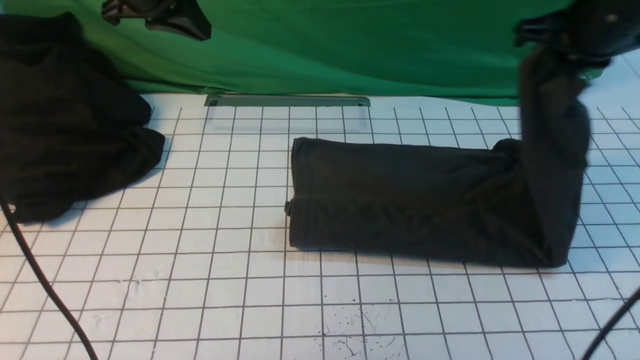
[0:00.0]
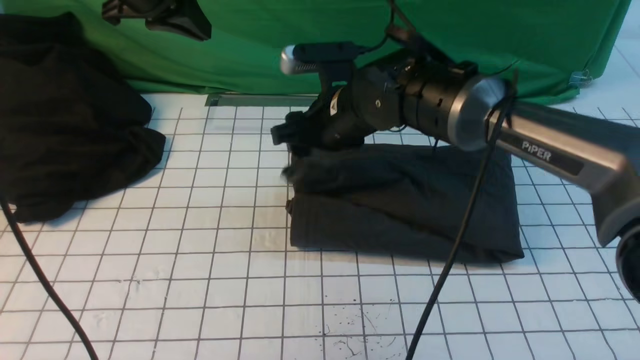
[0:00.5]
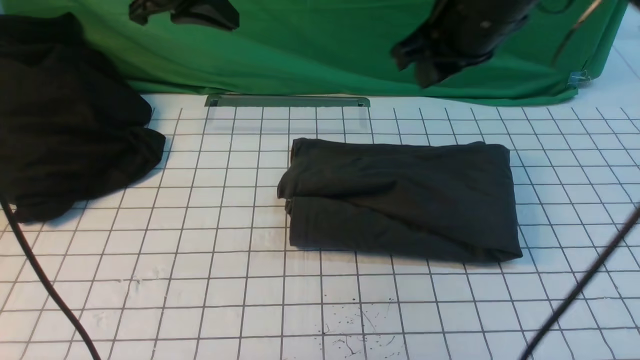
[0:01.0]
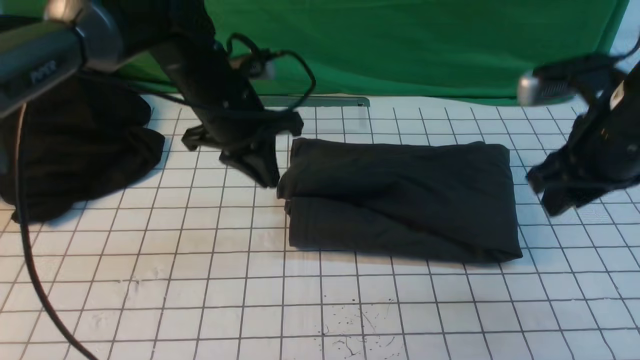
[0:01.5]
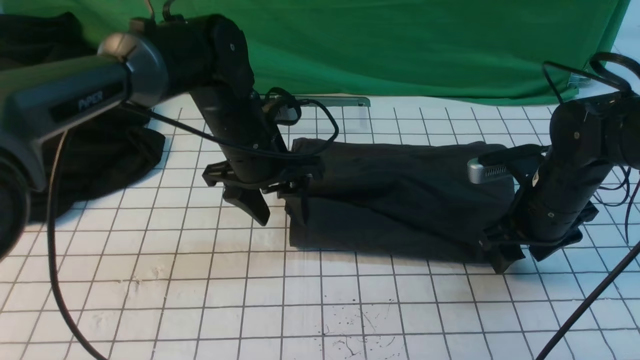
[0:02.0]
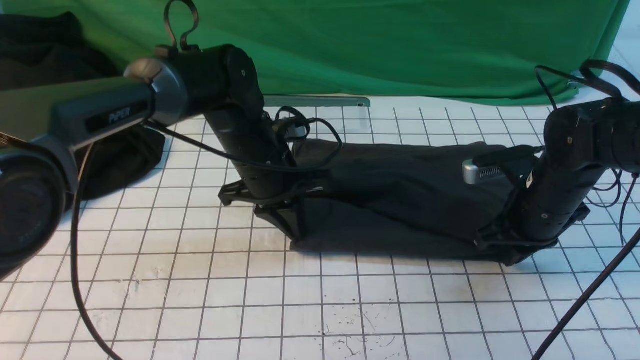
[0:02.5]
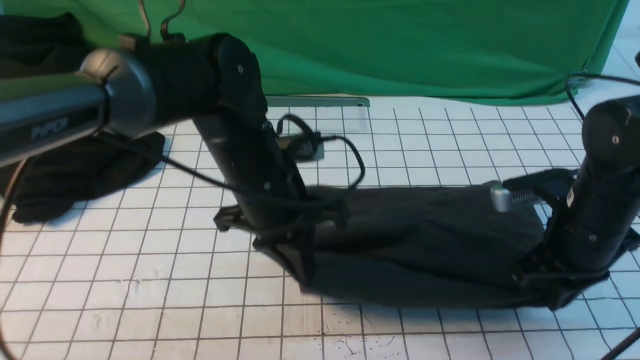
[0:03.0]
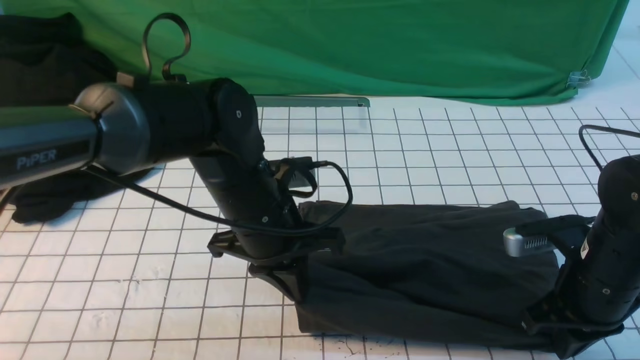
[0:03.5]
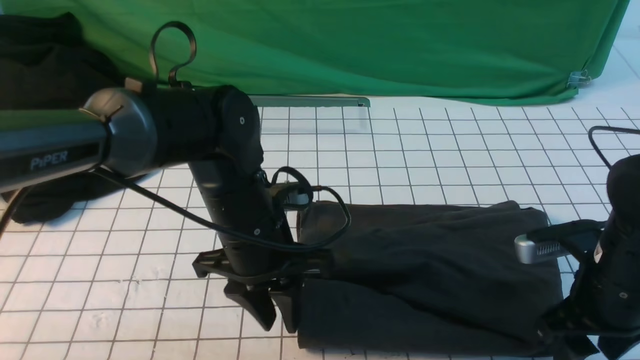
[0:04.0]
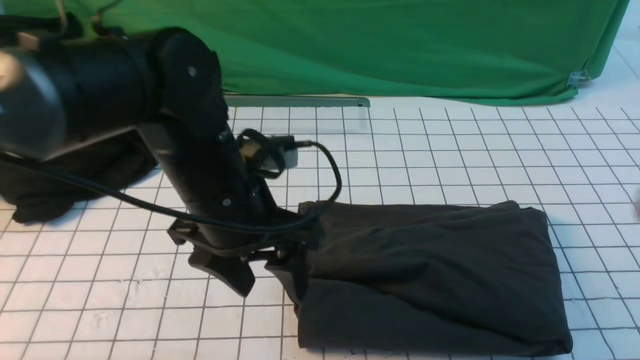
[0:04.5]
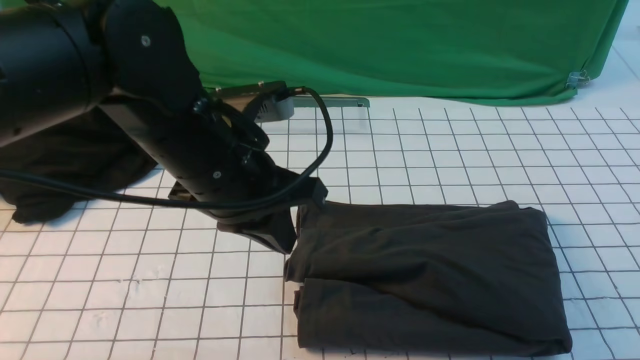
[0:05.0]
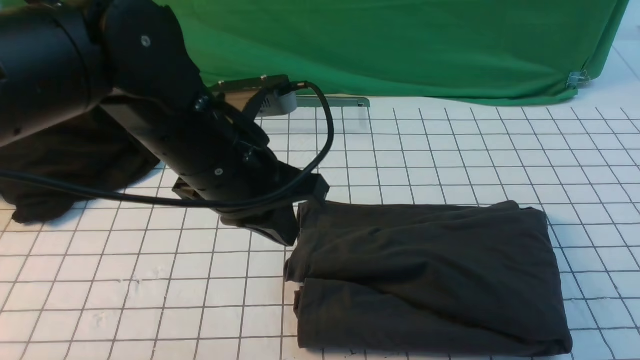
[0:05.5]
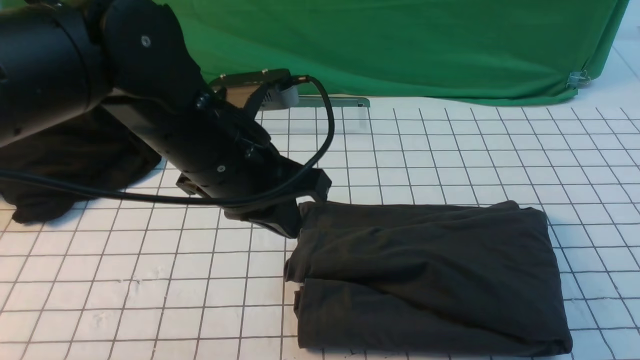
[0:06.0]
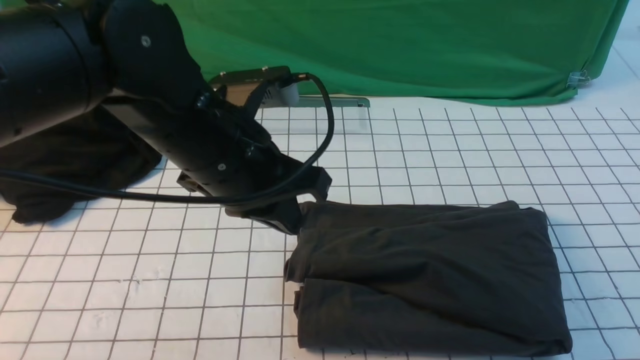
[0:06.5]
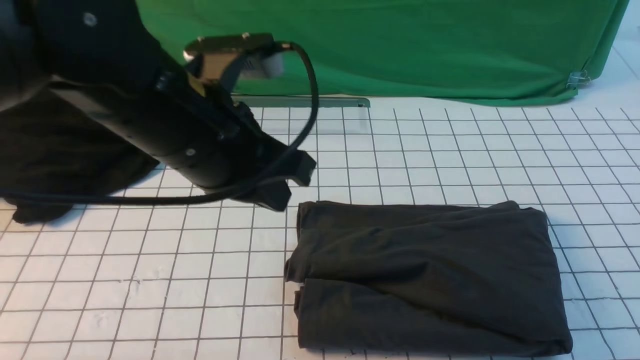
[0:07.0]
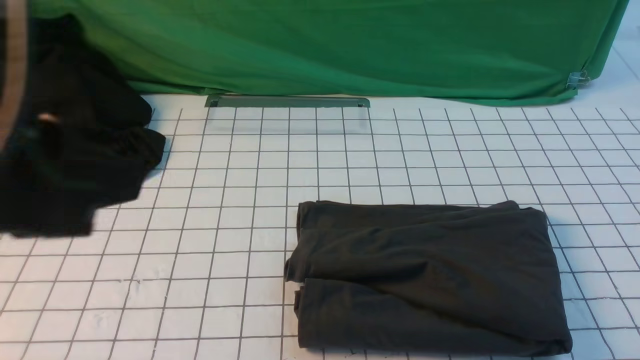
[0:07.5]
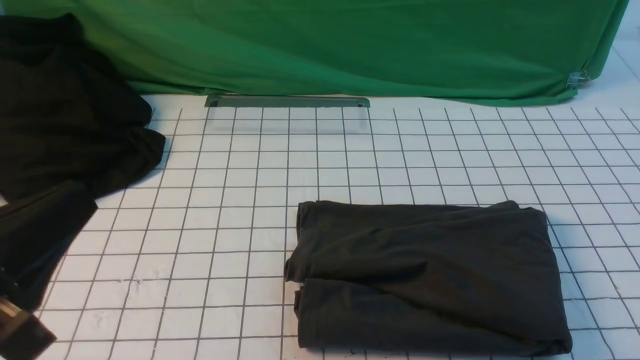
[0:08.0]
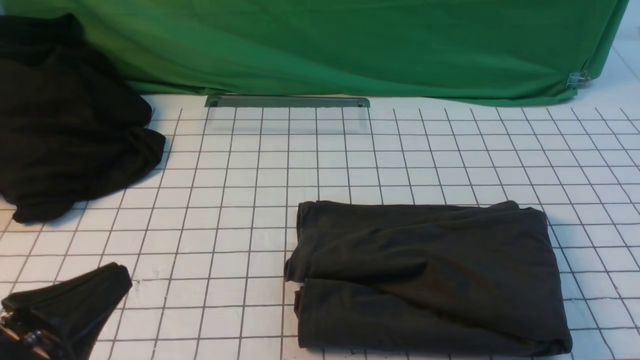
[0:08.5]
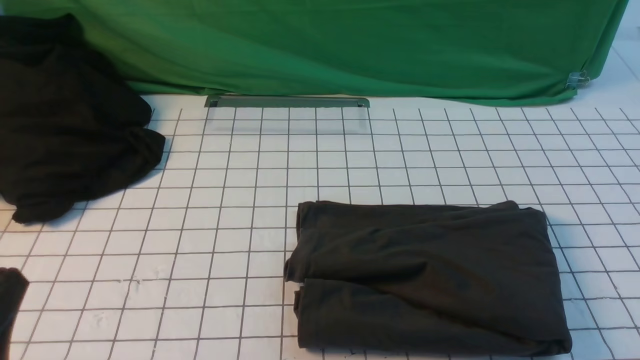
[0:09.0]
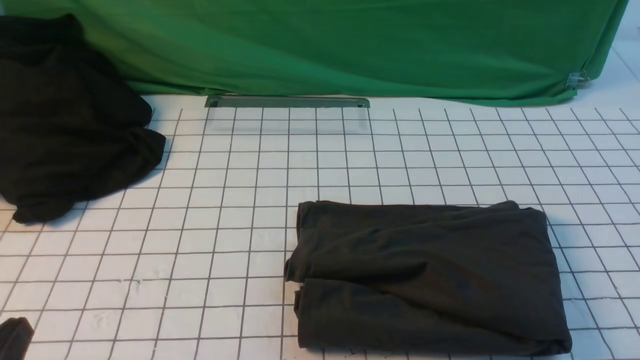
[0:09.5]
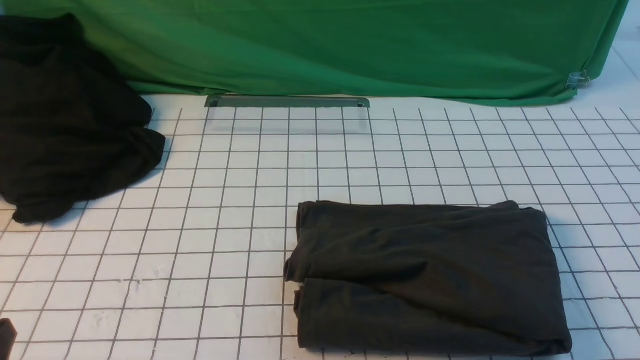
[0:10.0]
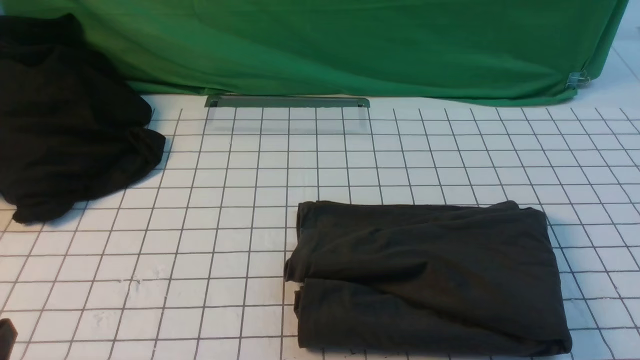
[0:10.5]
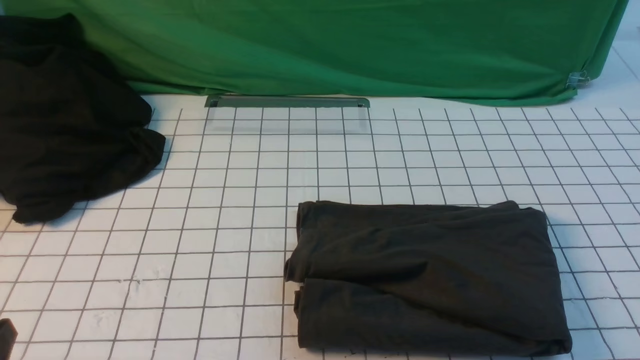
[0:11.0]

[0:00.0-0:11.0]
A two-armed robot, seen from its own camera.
Step, 0:00.0 to 0:01.0: use the right arm to drag the right edge of the fabric to the left and folds it over the left edge.
0:00.0 to 0:02.0: The left gripper travels downward, to the right and backward by approximately 20 cm, and opens its fingers, while the right gripper goes approximately 15 cm downward, reaches approximately 20 cm to the left, then returns, and opens its fingers.
0:02.0 to 0:03.5: Both grippers travel together backward, about 10 cm. The right gripper closes; the left gripper closes.
0:03.5 to 0:05.5: The left gripper travels upward by approximately 10 cm, and opens and closes again; the right gripper moves backward and upward, roughly 25 cm, and opens, then closes once more.
0:05.5 to 0:07.5: The right gripper is displaced downward by approximately 15 cm. Meanwhile the left gripper goes about 20 cm backward, upward and to the left.
0:07.5 to 0:09.0: The left gripper travels downward by approximately 20 cm.

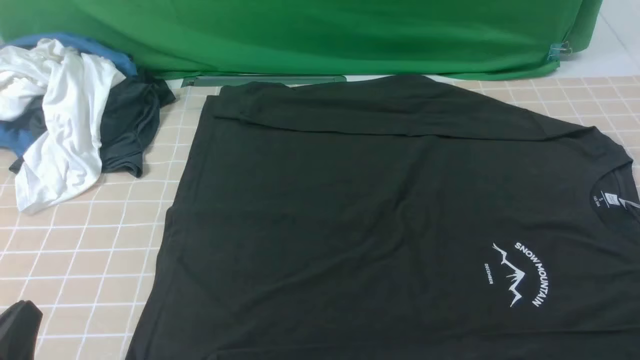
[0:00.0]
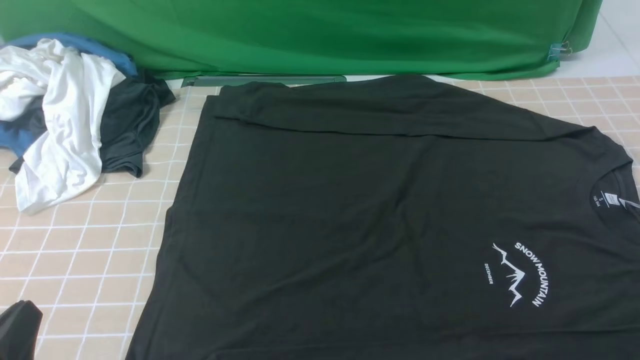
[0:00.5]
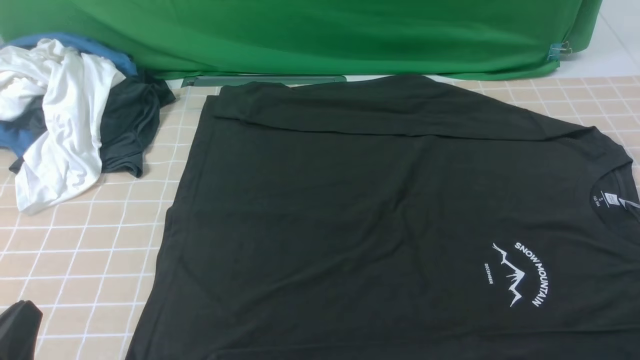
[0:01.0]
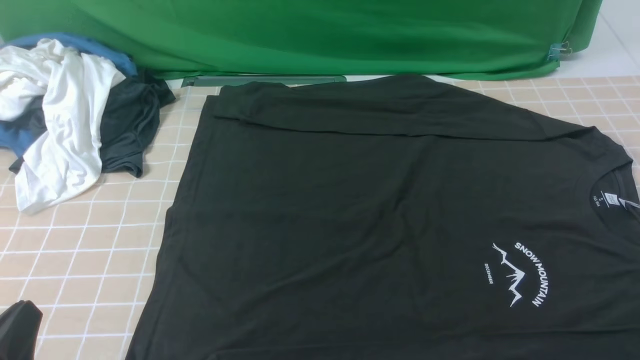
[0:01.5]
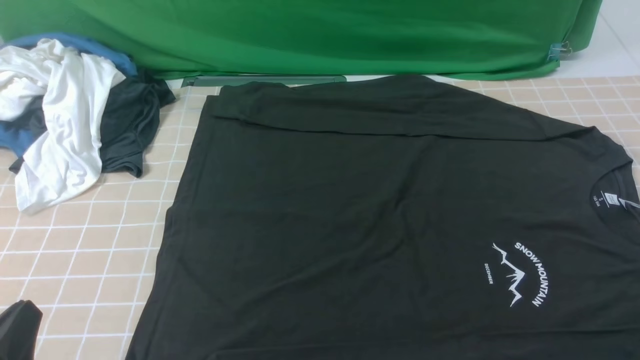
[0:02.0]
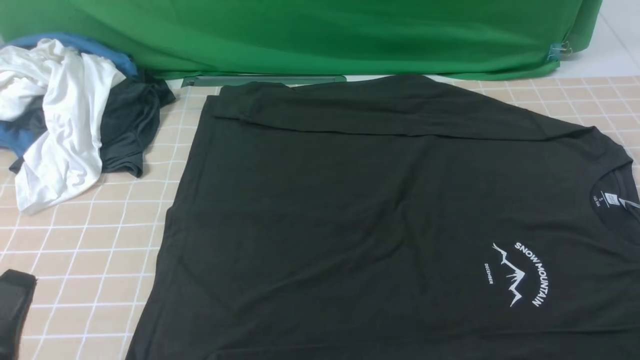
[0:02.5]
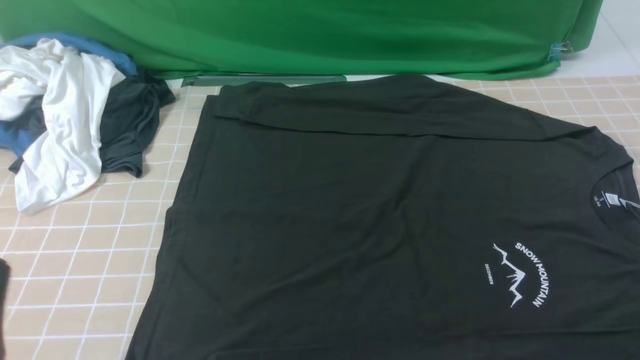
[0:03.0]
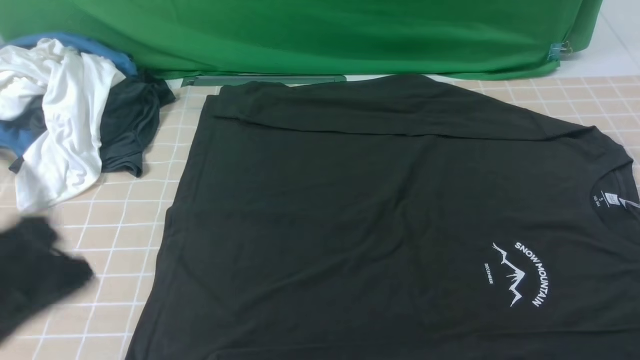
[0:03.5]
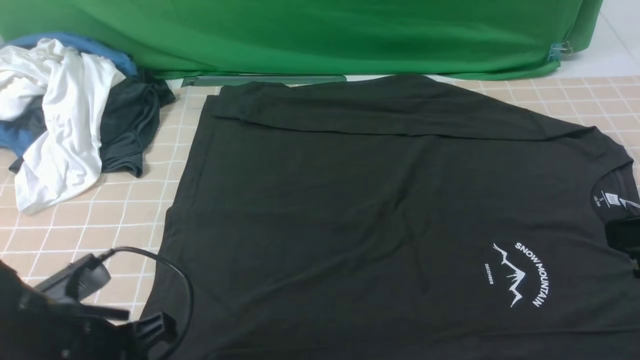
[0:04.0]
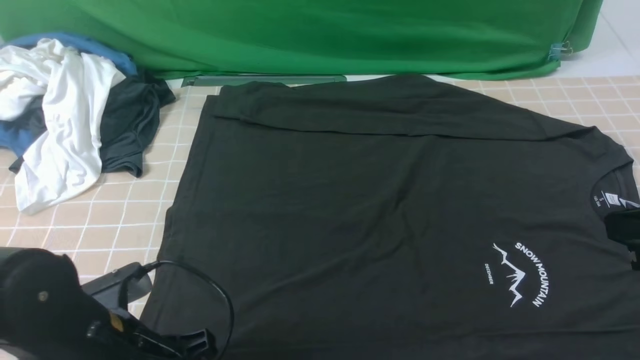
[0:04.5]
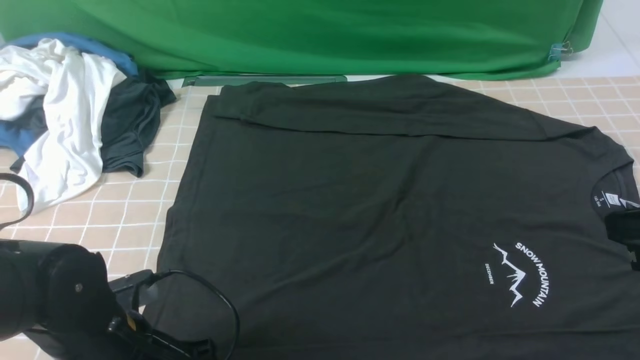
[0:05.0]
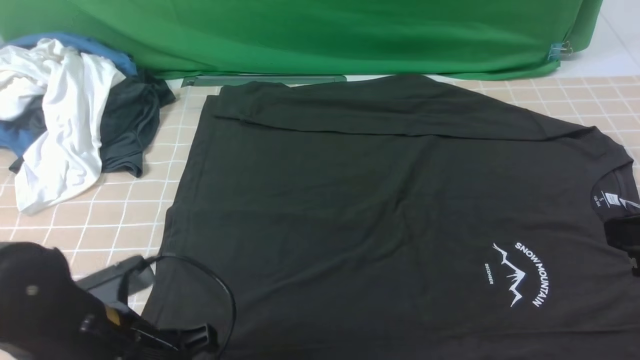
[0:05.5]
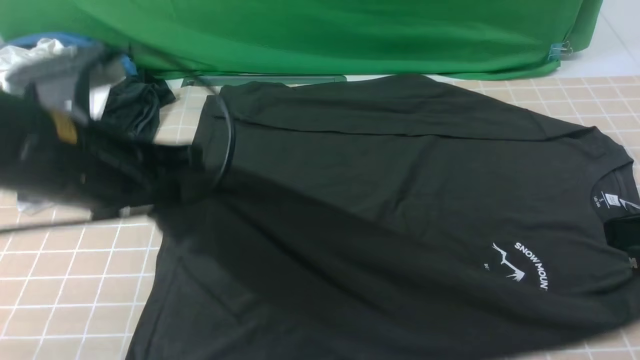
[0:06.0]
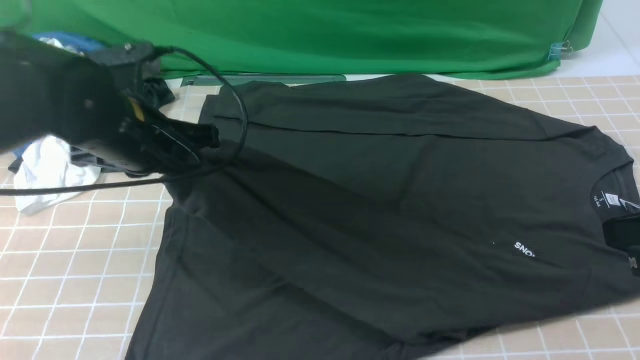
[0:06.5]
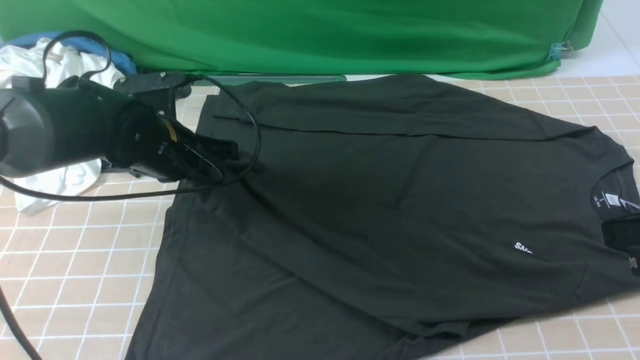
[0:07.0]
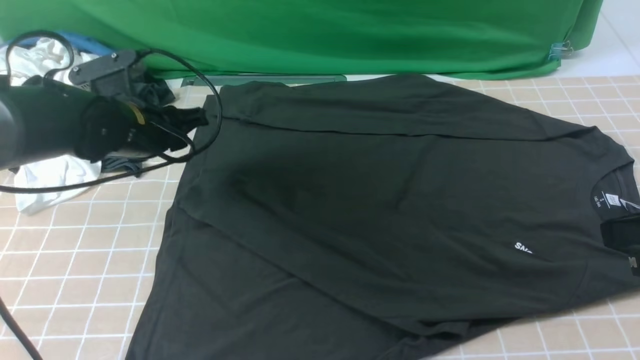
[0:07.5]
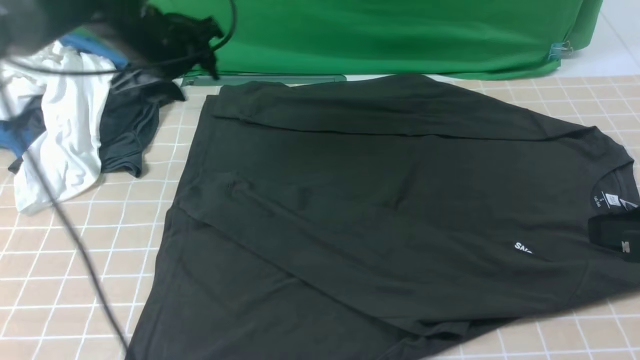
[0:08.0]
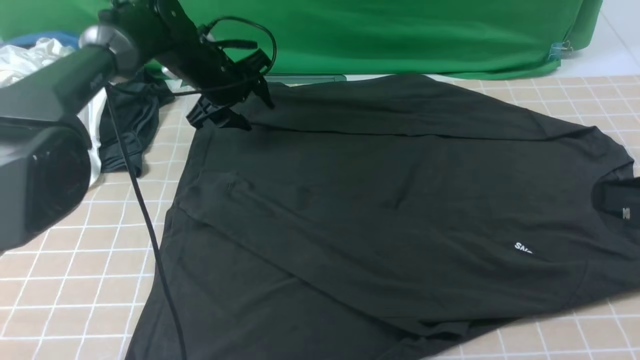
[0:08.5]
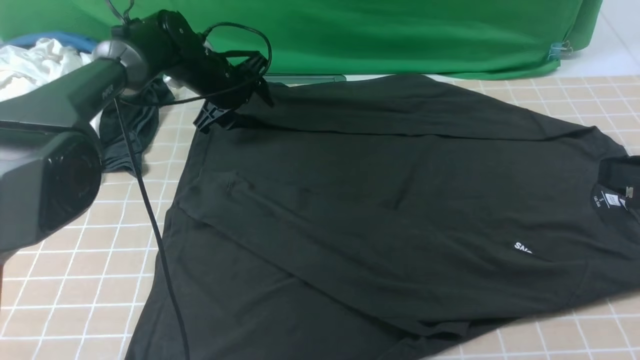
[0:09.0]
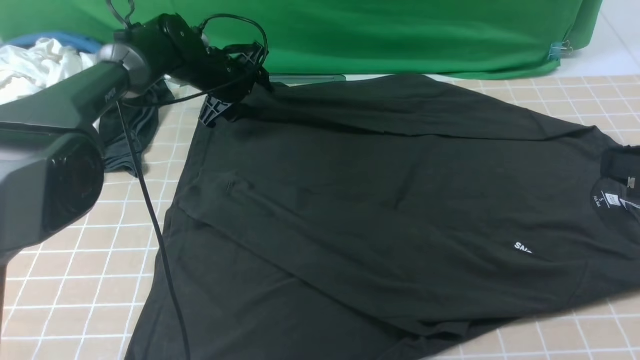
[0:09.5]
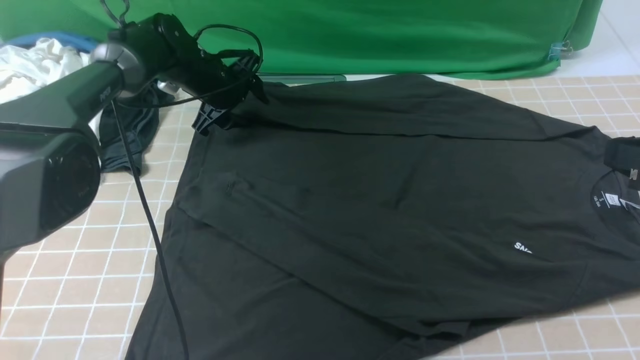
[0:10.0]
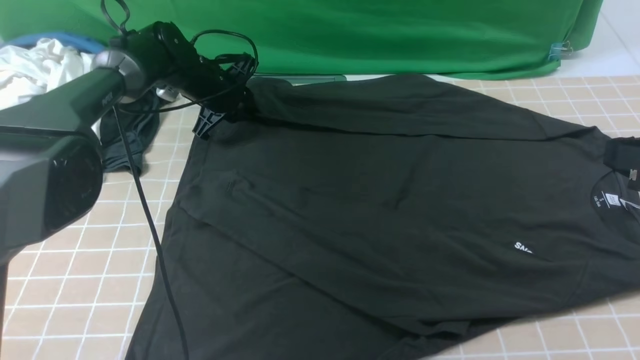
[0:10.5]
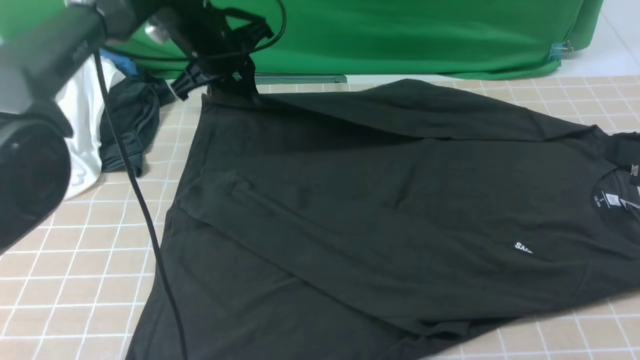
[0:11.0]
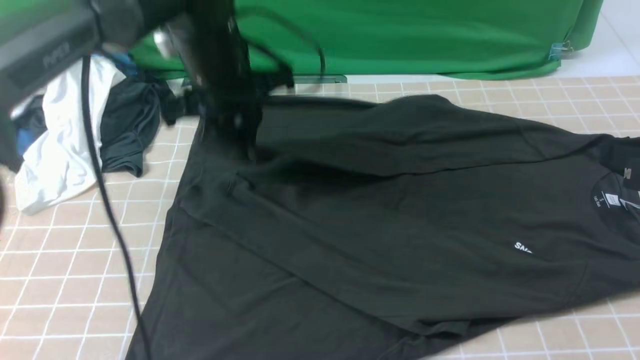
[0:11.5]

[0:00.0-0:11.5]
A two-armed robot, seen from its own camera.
Step, 0:00.0 to 0:05.0: use the left arm to clamp the cuff closest to it.
Step, 0:05.5 to 0:07.0: use the left arm to drag and place the cuff at the centered position on the left edge of the fabric.
Step, 0:07.5 to 0:10.5: use the left arm to clamp the cuff farthest from it.
0:02.0 to 0:04.0: The left gripper travels forward and to the right by approximately 10 cm, and goes upward and returns, about 10 cm each way.
0:04.0 to 0:06.0: The left gripper is displaced upward and forward by some 15 cm, and opens, then closes again.
0:06.0 to 0:07.5: The left gripper moves forward and downward, roughly 20 cm, and opens its fingers.
0:07.5 to 0:09.5: The left gripper shifts some 15 cm forward.
0:09.5 to 0:11.5: The left gripper heads backward and upward, covering approximately 20 cm, and closes its fingers.
